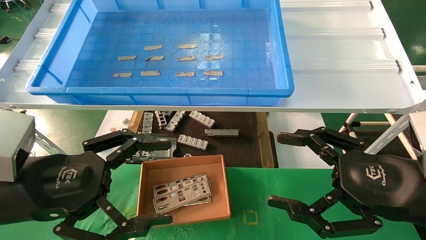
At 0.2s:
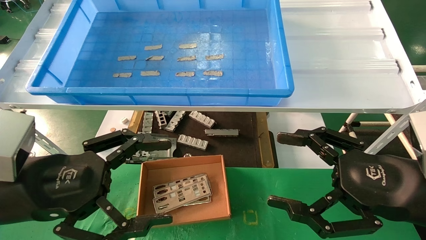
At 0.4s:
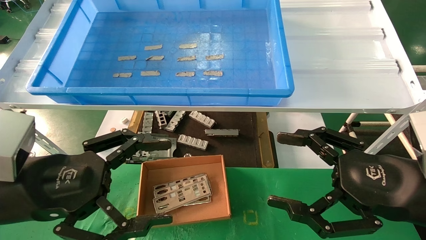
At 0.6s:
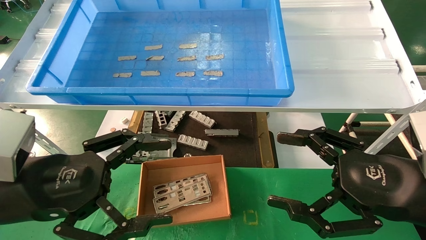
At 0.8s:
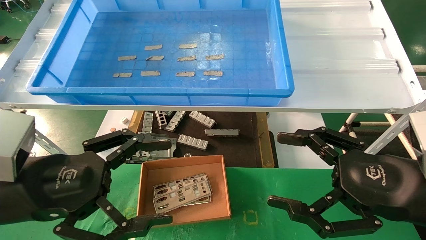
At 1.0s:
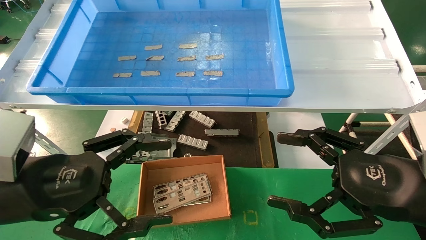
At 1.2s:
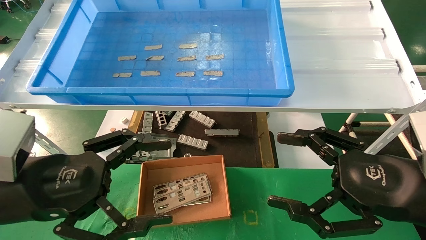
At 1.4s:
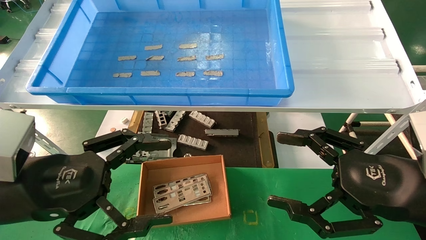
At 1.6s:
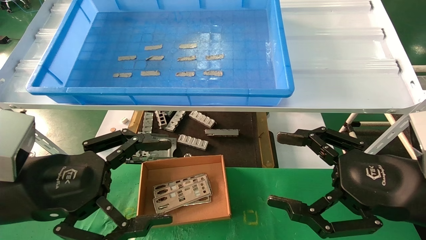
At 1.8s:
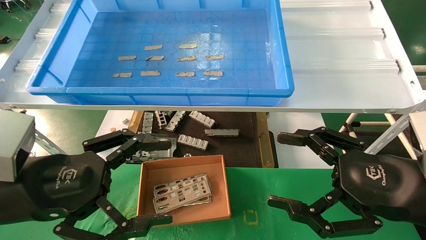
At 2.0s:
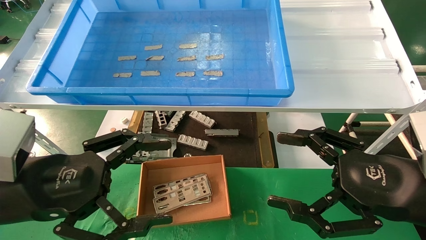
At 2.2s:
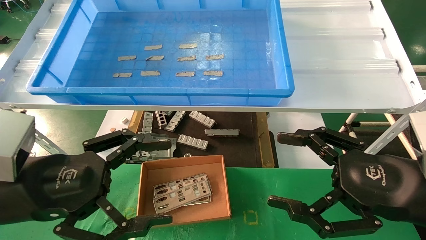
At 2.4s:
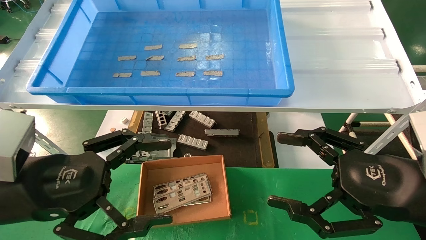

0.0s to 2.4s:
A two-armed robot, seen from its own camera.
Task of the whole recording: pick up the parts on the tray and put them in the cardboard box.
0.0s to 2.4s: The two grippers keep their place.
